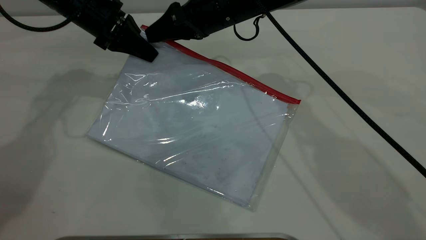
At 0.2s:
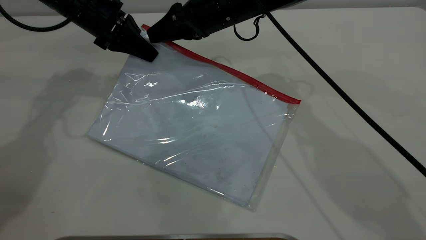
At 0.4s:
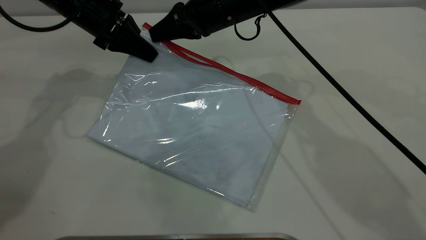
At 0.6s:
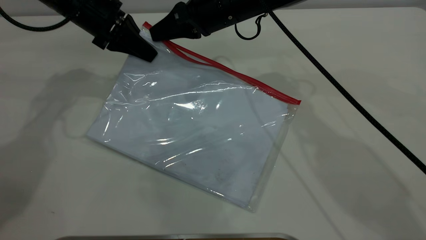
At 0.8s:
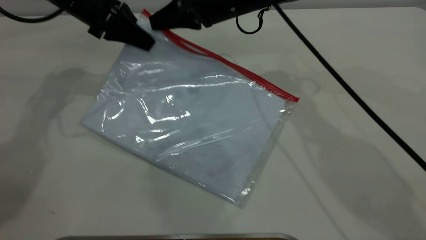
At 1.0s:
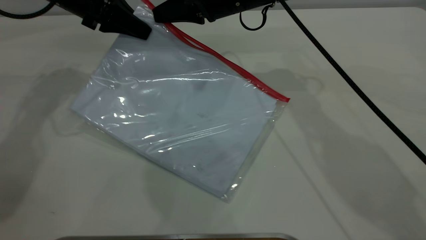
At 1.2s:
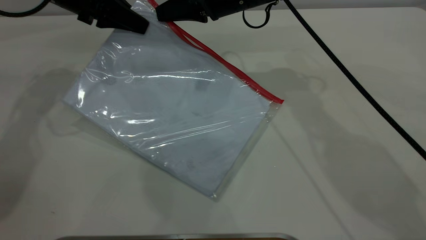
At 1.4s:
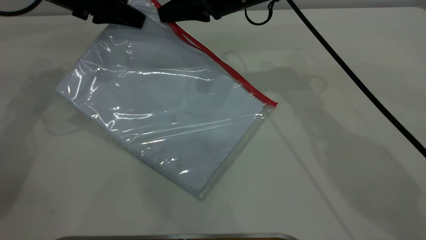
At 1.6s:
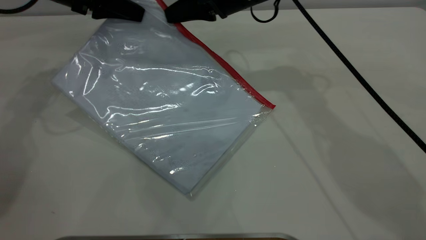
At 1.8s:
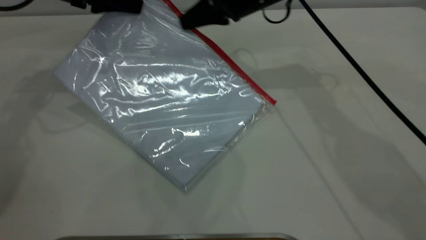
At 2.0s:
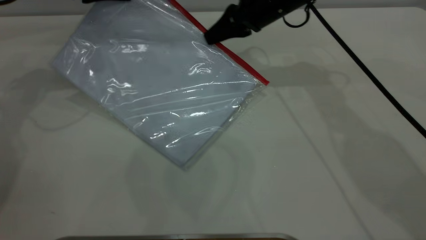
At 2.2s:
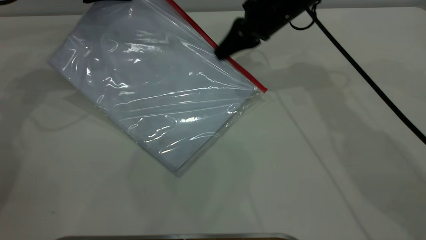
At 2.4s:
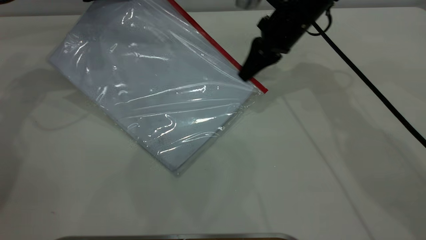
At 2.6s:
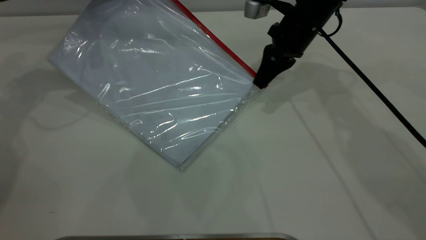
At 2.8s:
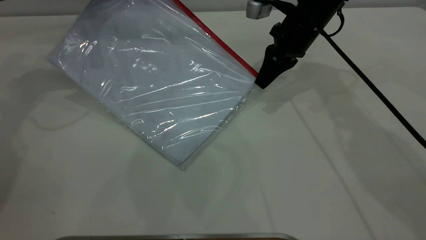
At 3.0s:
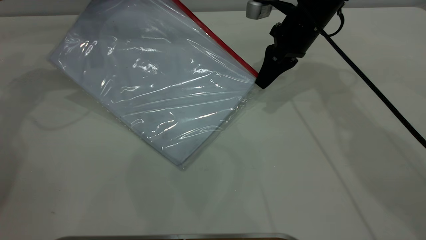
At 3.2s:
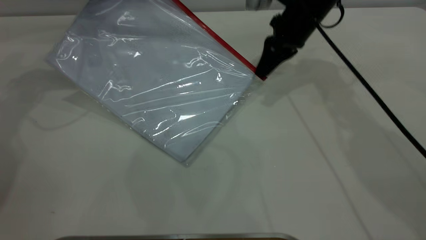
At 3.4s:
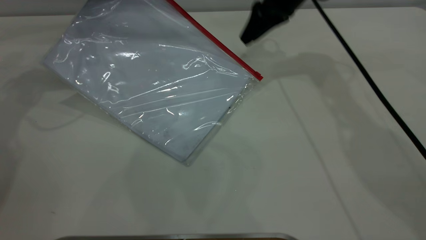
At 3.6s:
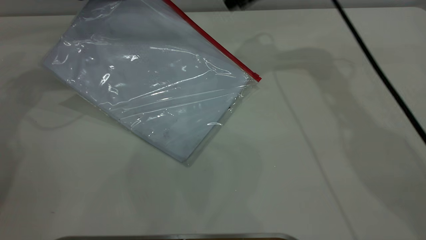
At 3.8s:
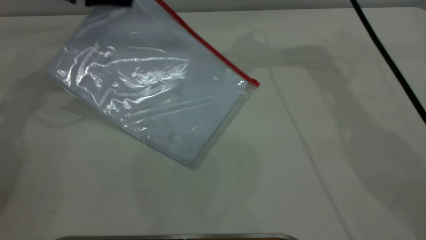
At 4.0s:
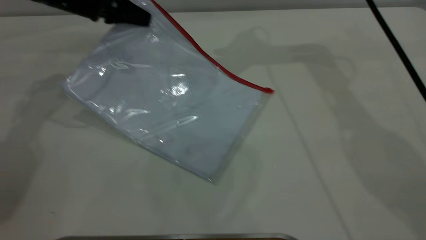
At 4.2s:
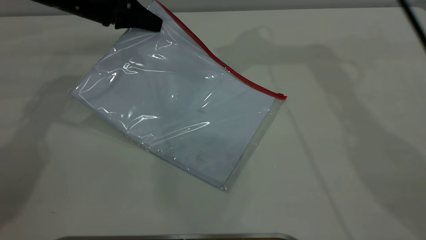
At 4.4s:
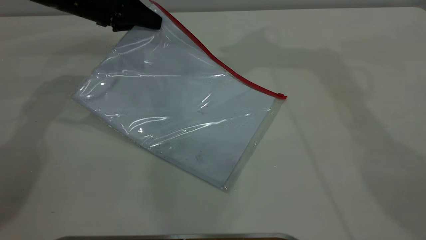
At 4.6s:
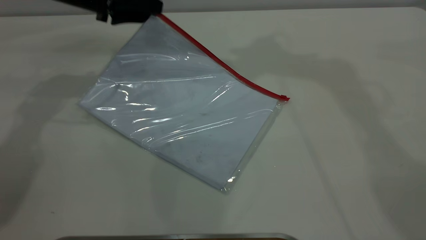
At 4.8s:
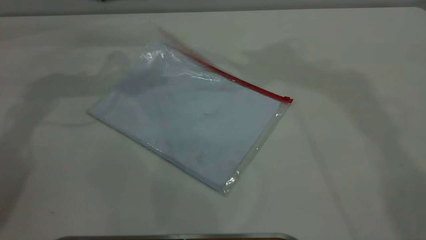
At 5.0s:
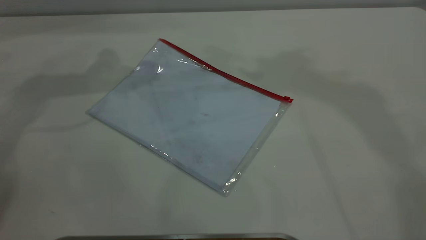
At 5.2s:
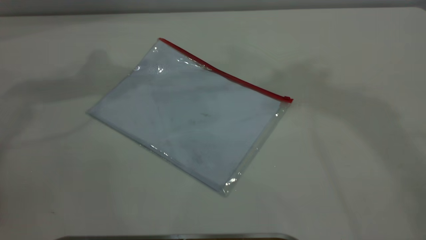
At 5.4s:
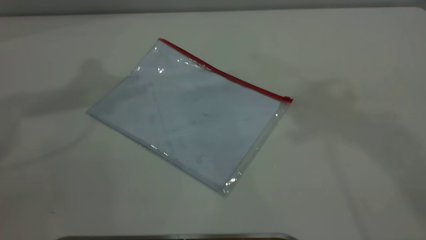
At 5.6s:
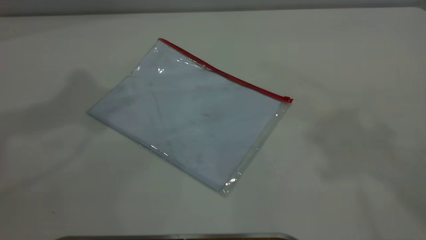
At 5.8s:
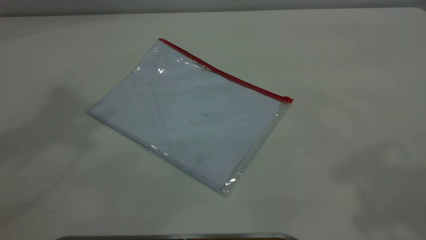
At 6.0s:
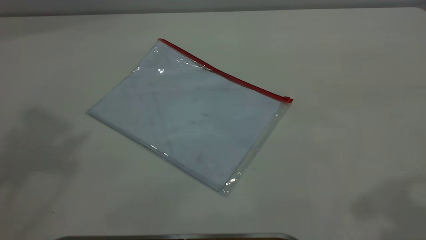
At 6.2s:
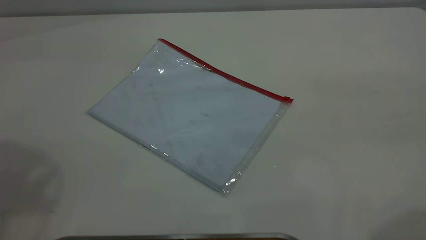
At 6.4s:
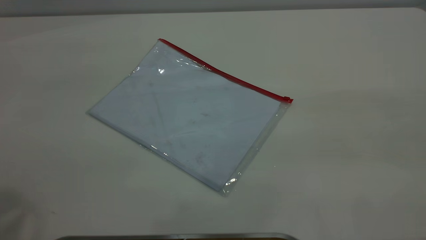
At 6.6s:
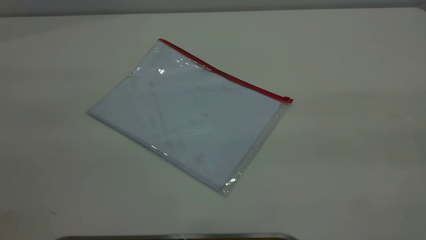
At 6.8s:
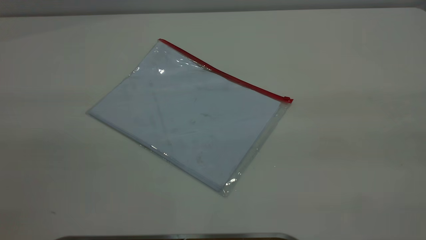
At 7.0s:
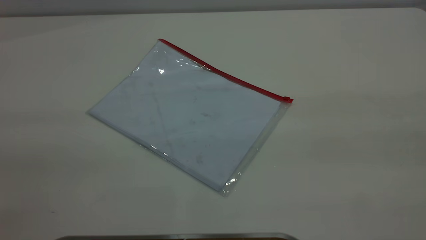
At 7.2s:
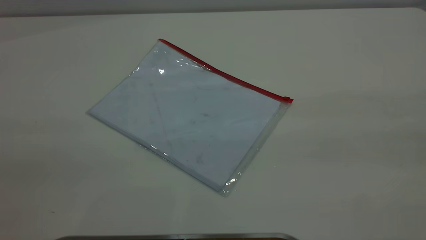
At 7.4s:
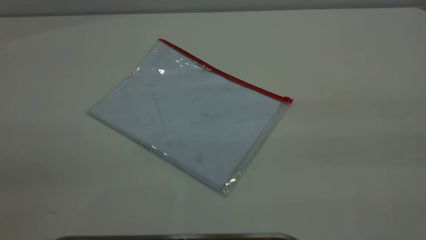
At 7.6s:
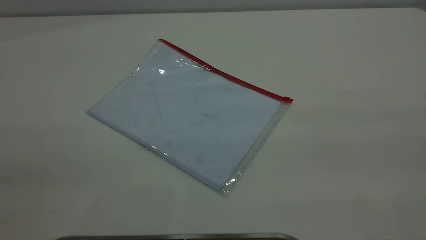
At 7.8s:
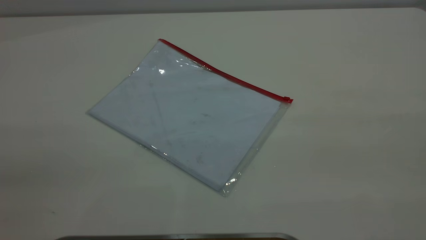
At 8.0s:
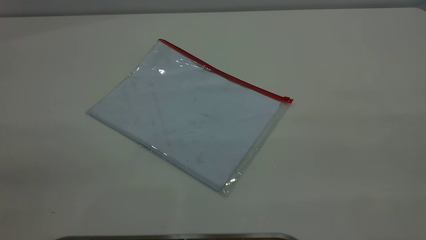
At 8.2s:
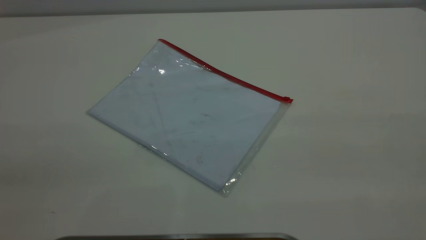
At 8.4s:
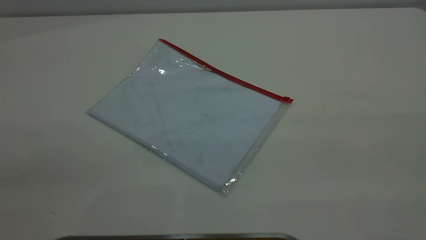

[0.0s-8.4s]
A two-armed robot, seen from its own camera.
Step, 0.0s to 3.2s: Pulling up the zipper on the transparent plastic bag with the right gripper to close it.
Step, 3.4s to 4.8s: Place the transparent plastic bag.
0.0s to 1.4s: The right gripper closes.
1.4s to 2.8s: The right gripper is displaced to the right by roughly 10 cm.
2.8s to 4.2s: The left gripper ends up roughly 5 cm from where it was, while the right gripper is displaced upward by roughly 25 cm, and opens up.
4.2s to 5.6s: The right gripper shifts about 30 cm backward, upward and to the right, while the left gripper moves upward, roughly 35 cm, and opens up.

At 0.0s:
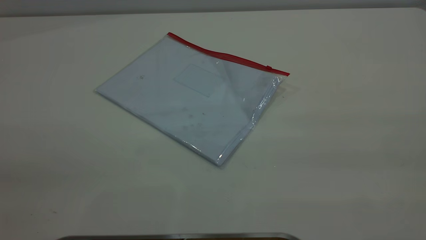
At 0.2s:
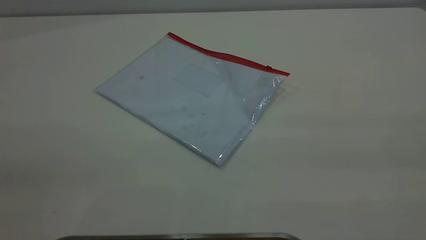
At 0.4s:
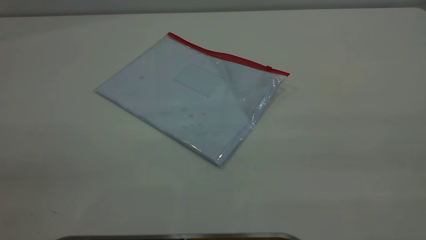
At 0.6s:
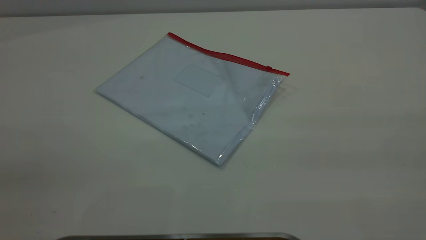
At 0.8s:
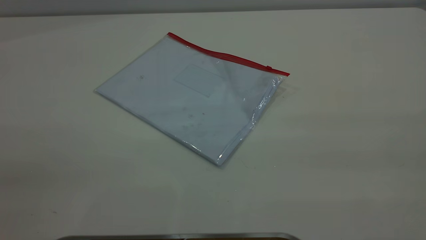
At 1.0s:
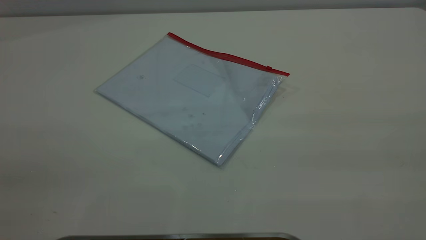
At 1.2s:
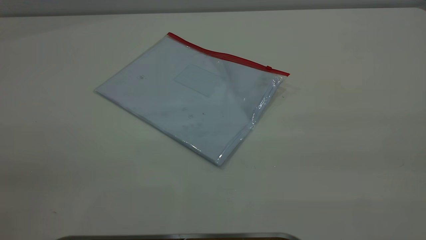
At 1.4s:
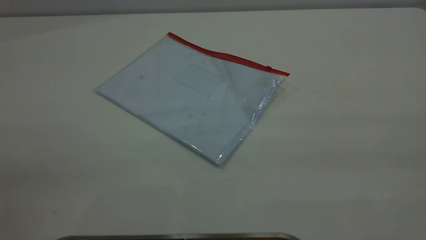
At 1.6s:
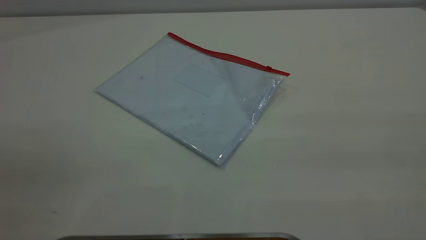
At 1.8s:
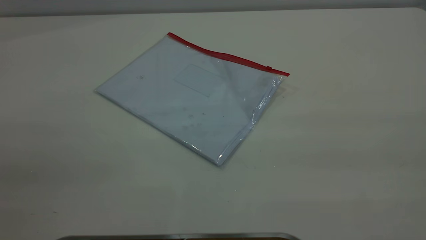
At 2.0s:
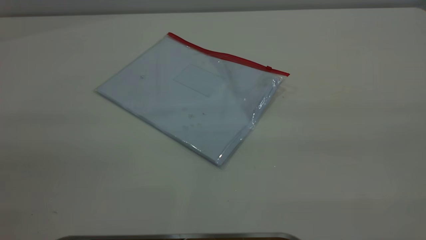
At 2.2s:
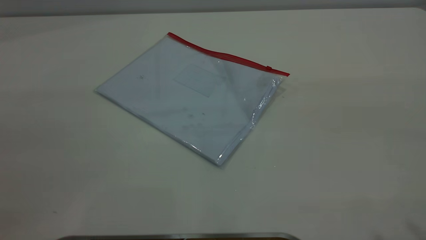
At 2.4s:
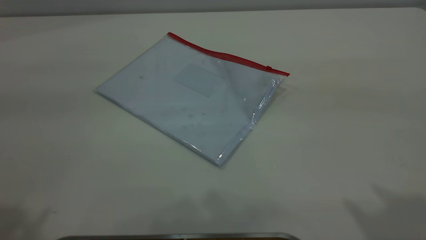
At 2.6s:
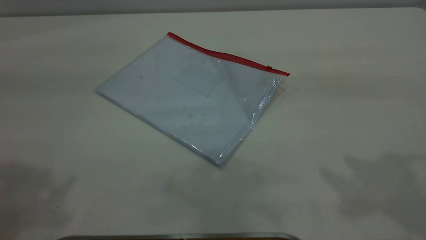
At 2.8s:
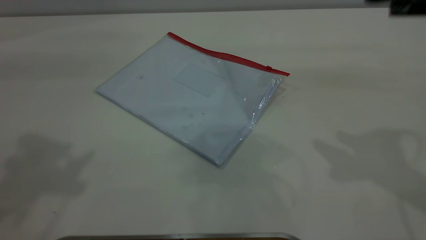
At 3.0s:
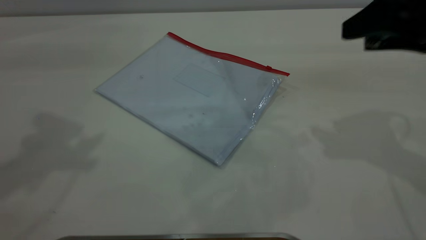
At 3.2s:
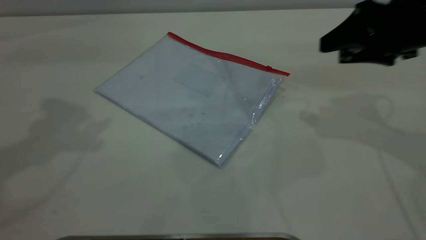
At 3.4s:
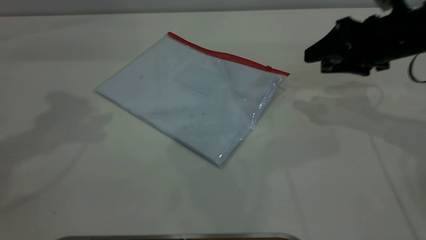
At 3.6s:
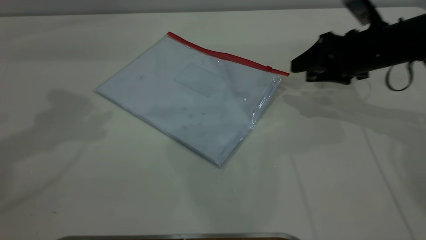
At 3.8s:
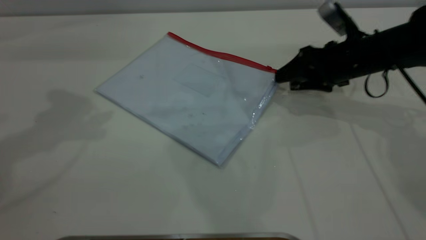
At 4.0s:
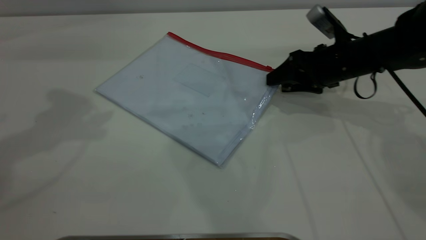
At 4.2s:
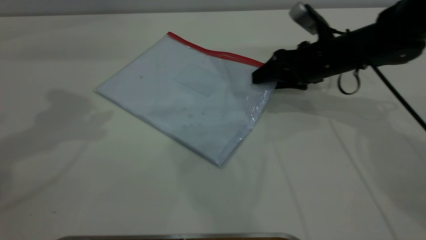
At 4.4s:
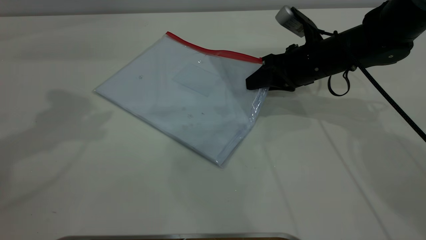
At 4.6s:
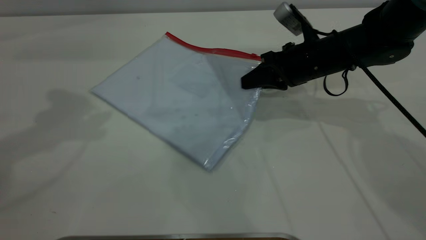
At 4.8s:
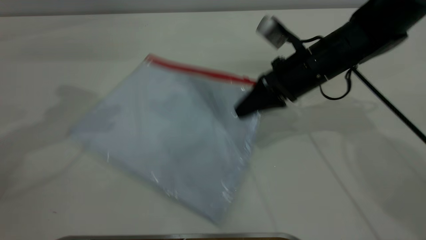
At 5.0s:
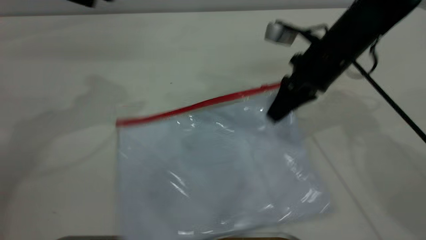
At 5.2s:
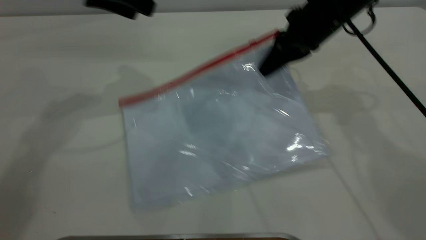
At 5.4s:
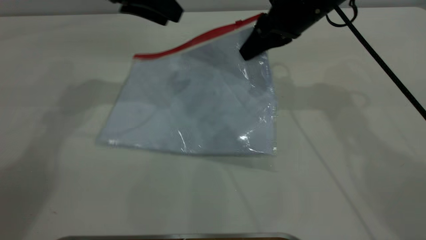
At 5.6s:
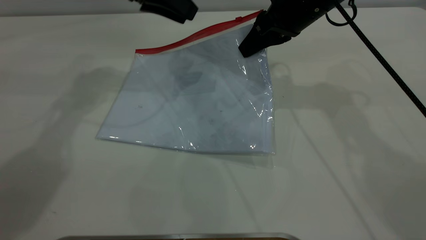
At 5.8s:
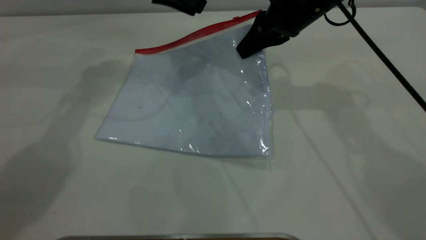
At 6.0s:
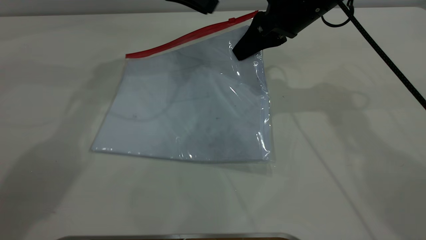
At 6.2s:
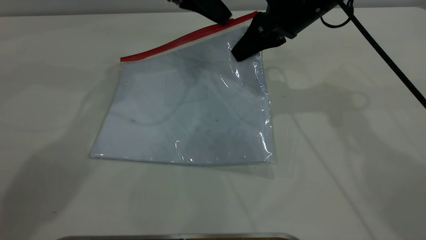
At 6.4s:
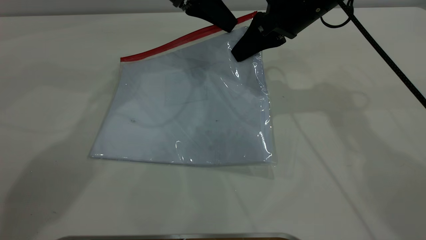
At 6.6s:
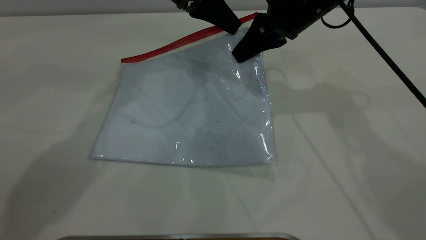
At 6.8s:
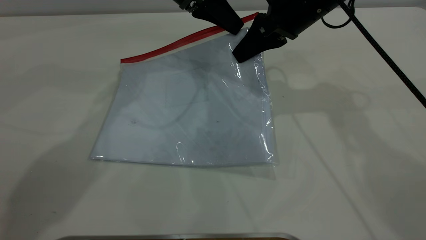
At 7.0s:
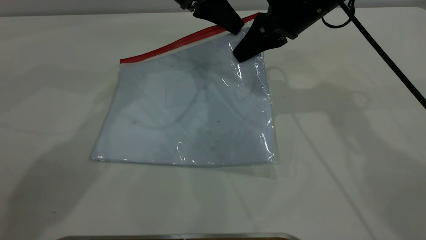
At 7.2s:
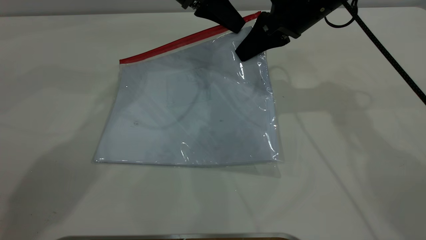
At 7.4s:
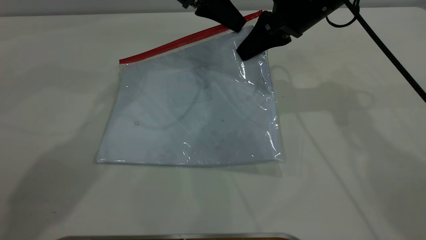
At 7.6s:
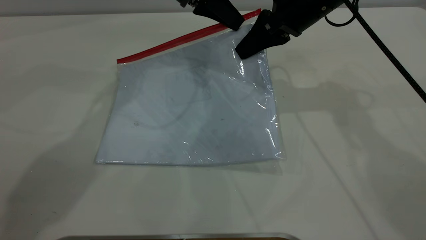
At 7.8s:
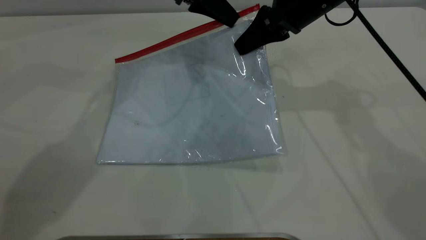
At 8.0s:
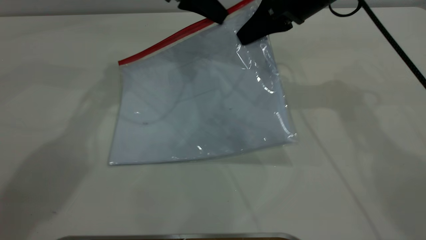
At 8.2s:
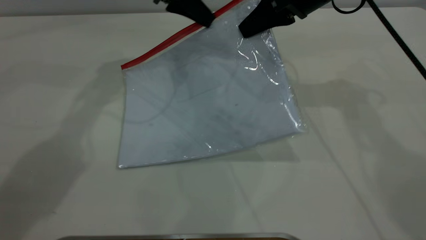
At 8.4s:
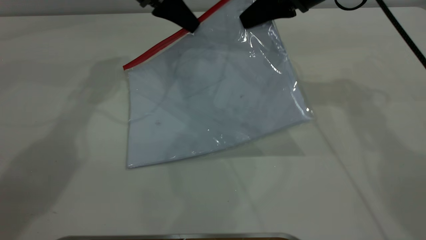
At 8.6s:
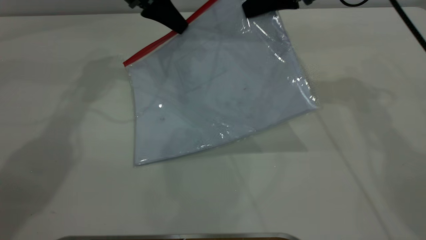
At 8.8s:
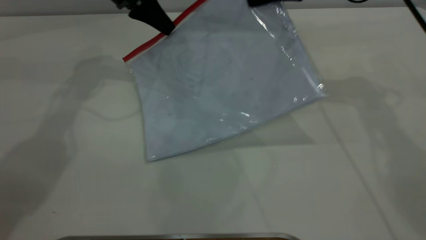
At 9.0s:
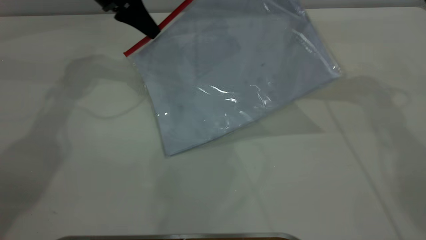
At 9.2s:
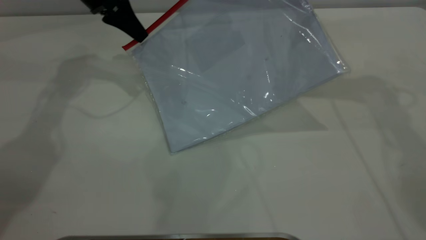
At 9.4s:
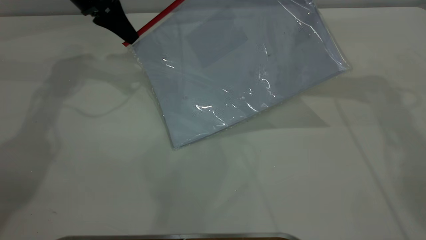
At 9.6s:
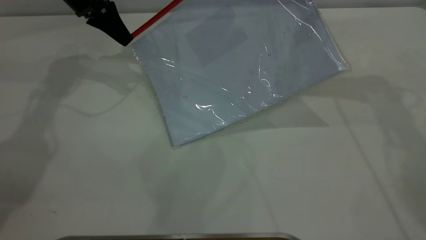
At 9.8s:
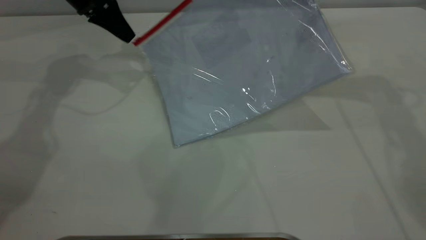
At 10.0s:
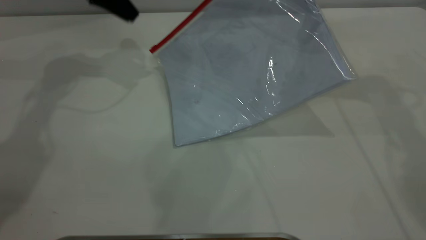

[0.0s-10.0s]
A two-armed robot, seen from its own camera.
Step, 0.0s to 5.0s: Pick up the transparent plastic bag with the right gripper.
Step, 5.4s to 10.0s: Pulling up the zipper on the transparent plastic bag with the left gripper to close it.
0.0s to 1.4s: Both grippers stay about where they are.
1.4s to 2.8s: The right gripper travels forward by some 25 cm.
2.8s to 4.2s: The left gripper heads forward and downward, covering approximately 10 cm. The right gripper shifts approximately 25 cm downward, forward and to the left.
4.2s to 5.8s: The left gripper is displaced forward, to the right and downward by approximately 25 cm. Meanwhile the right gripper moves upward, some 10 cm, and closes up.
5.8s to 7.2s: The left gripper heads to the right, covering about 5 cm, and closes.
7.2s to 8.6s: The left gripper is displaced to the left by about 10 cm.
8.6s to 10.0s: The left gripper goes roughly 5 cm to the left, and opens up.
